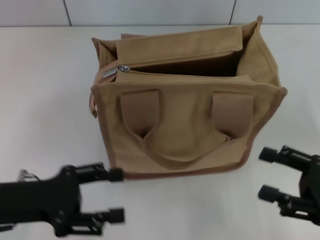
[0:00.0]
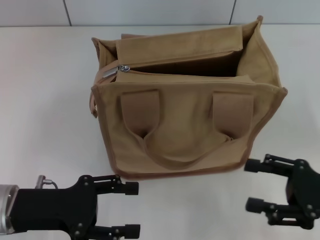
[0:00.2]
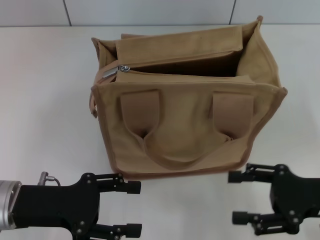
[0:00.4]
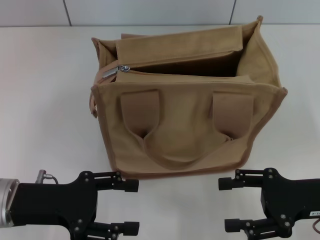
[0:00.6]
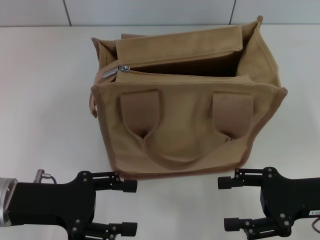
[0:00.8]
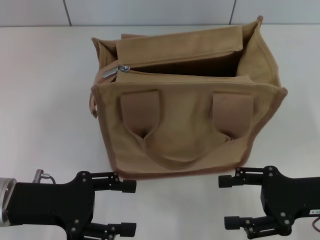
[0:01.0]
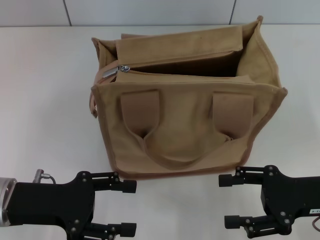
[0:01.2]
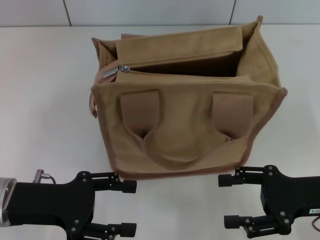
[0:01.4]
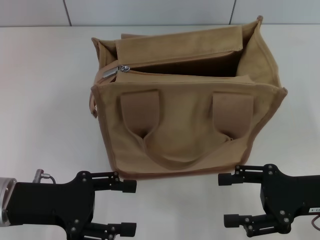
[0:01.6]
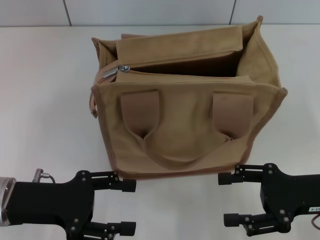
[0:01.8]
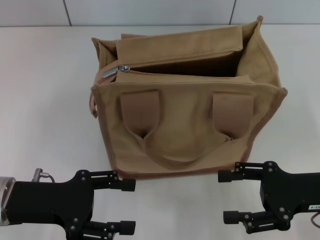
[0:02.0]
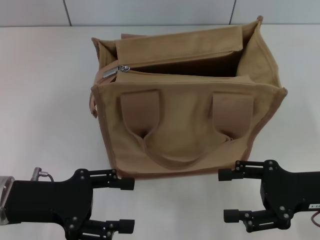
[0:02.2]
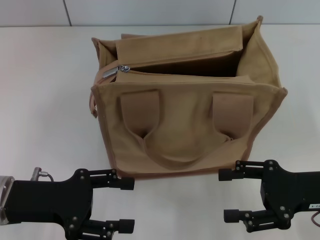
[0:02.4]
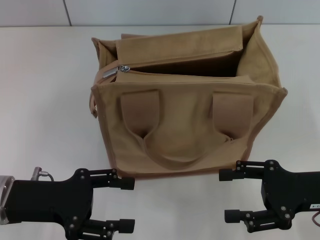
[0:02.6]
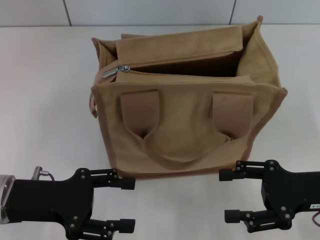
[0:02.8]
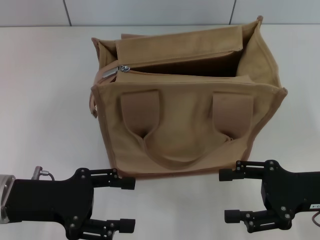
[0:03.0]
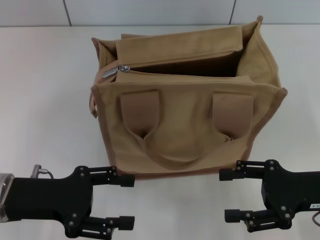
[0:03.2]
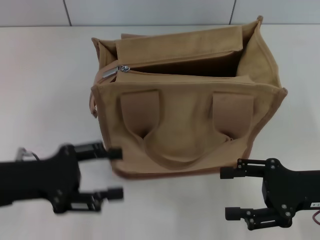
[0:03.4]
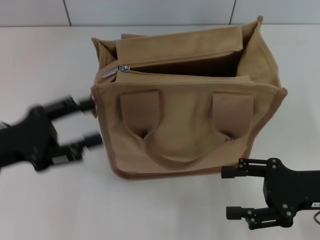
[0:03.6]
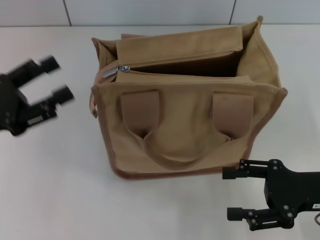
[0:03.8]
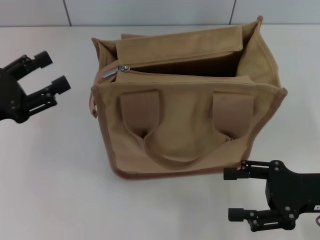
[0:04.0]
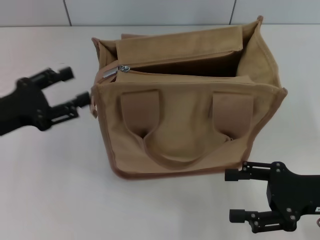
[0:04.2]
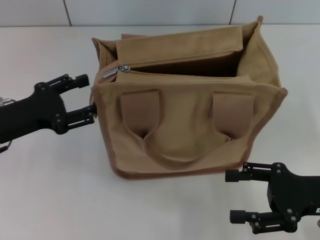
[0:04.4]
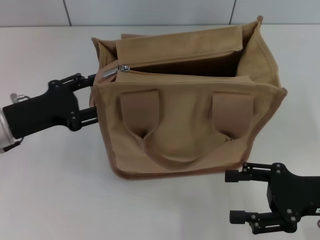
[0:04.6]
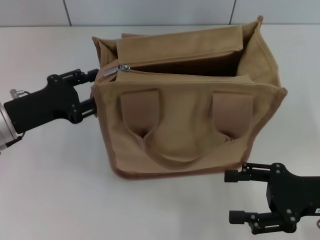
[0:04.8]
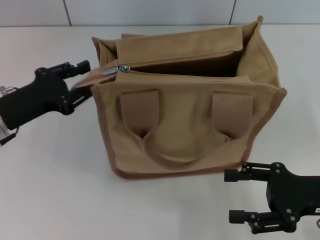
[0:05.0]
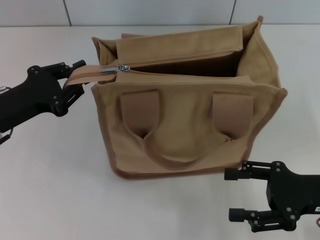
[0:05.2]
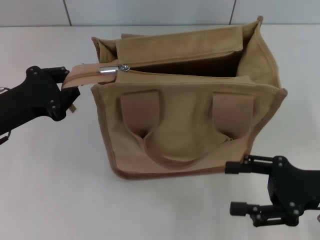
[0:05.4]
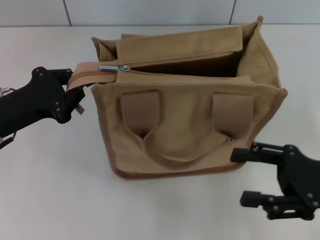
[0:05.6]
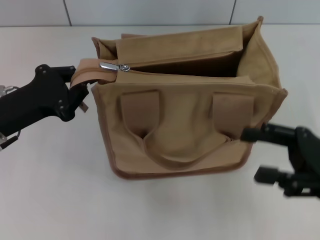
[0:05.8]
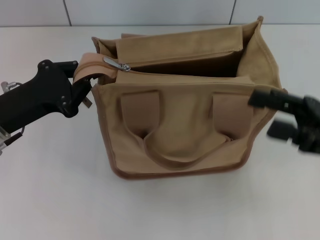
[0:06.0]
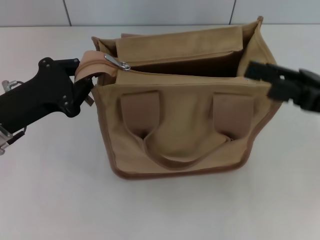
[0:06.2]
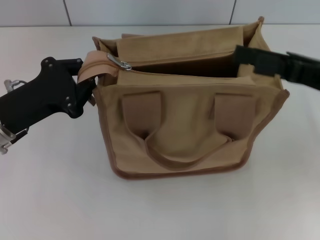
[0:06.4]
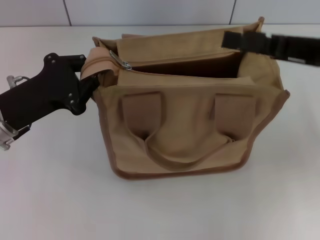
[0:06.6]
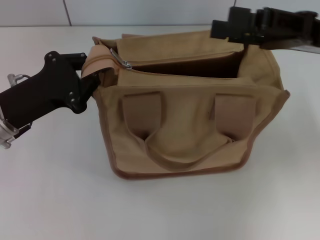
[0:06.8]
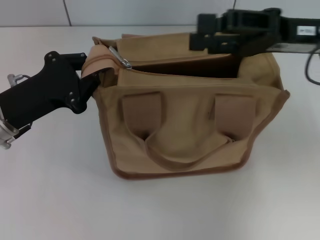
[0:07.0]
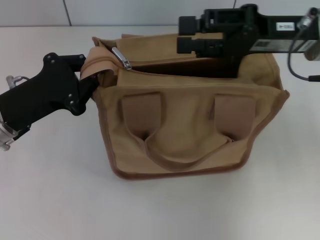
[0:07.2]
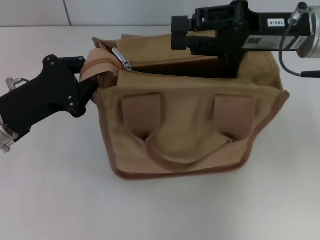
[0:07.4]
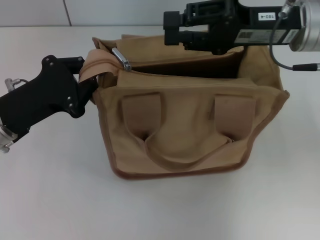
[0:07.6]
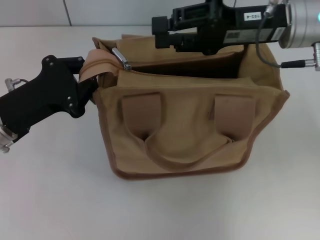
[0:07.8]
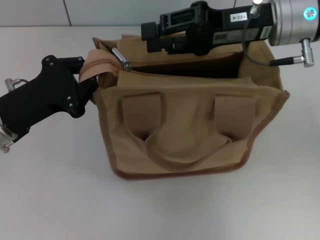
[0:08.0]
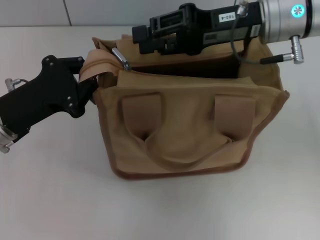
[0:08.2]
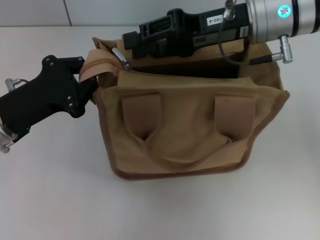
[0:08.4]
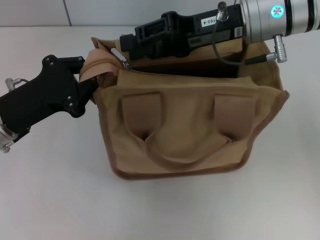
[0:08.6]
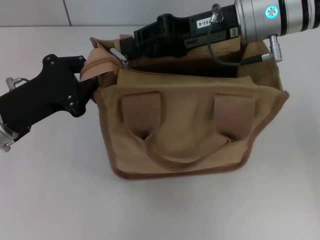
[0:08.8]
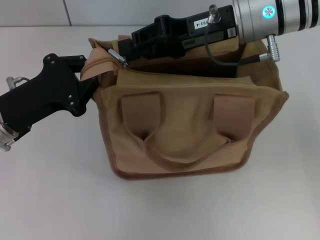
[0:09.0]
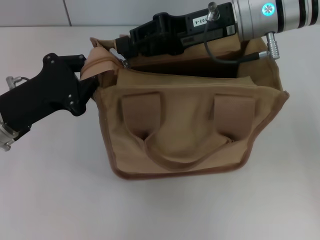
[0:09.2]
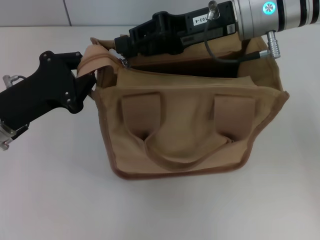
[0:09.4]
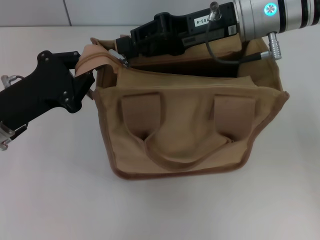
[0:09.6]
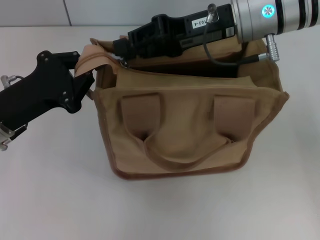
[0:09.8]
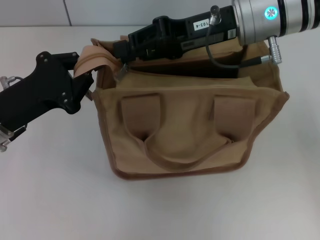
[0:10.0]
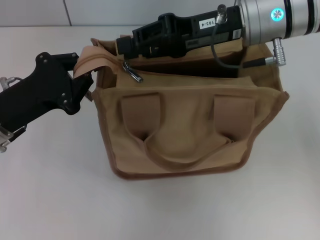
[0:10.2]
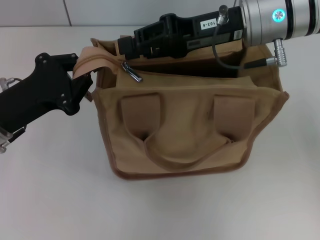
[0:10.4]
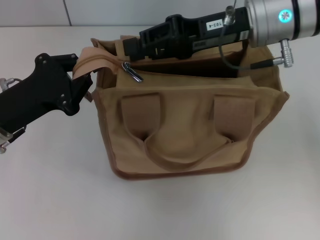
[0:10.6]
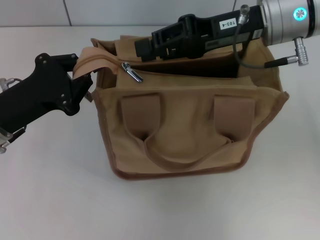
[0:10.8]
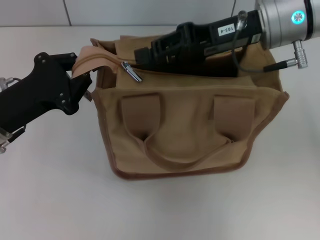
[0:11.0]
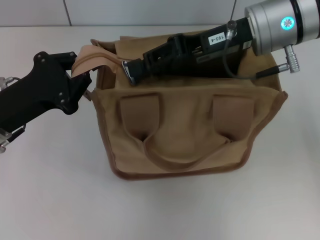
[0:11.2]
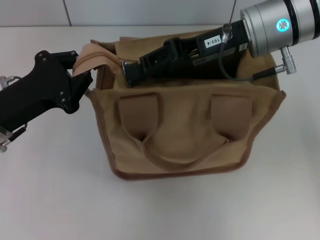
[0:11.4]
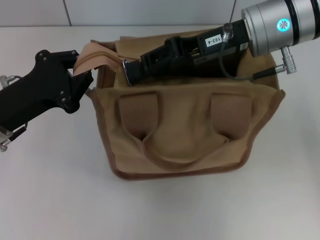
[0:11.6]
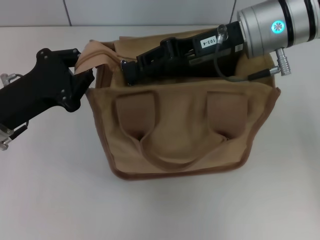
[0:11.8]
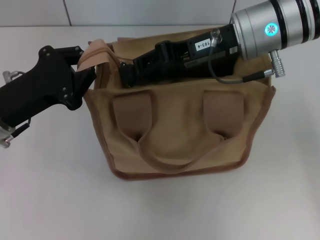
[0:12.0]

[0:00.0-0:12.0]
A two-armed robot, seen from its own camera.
0:00.0 to 0:01.6: The right gripper moves approximately 5 cm.
0:01.6 to 0:03.0: Both grippers stay about where they are.
0:03.0 to 0:04.4: The left gripper travels forward by about 5 cm.
0:04.4 to 0:06.0: The right gripper goes approximately 5 cm upward. Meanwhile the left gripper closes up.
0:06.0 to 0:07.6: The right gripper shifts approximately 15 cm forward, to the left and upward.
0:07.6 to 0:09.0: The right gripper goes roughly 5 cm to the left.
0:09.0 to 0:10.4: Both grippers stay put.
0:10.4 to 0:12.0: The grippers move only a little.

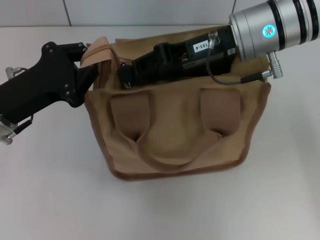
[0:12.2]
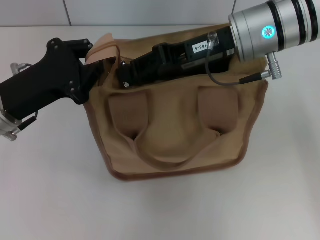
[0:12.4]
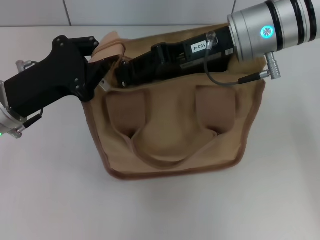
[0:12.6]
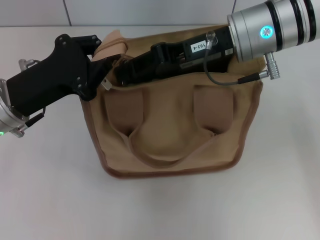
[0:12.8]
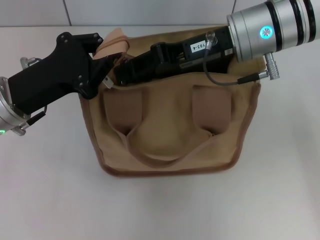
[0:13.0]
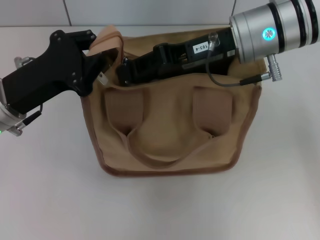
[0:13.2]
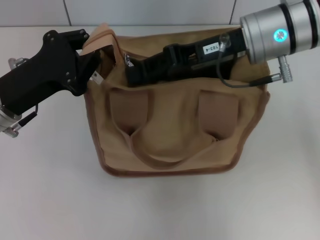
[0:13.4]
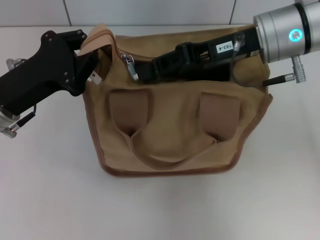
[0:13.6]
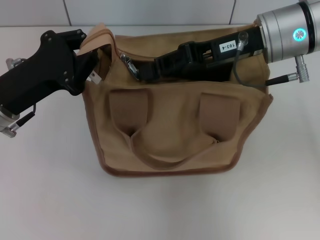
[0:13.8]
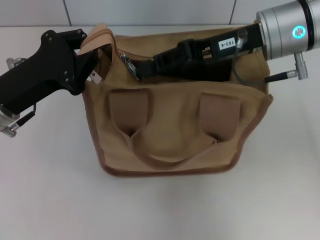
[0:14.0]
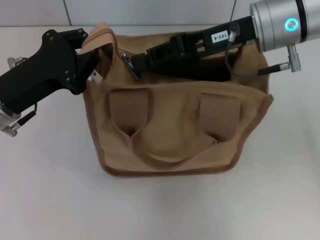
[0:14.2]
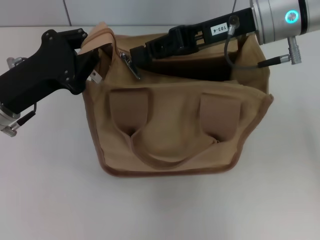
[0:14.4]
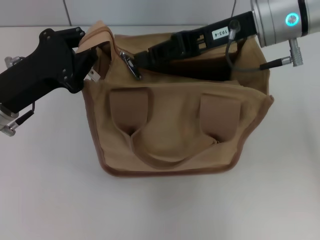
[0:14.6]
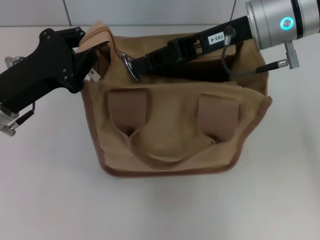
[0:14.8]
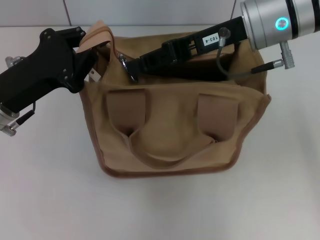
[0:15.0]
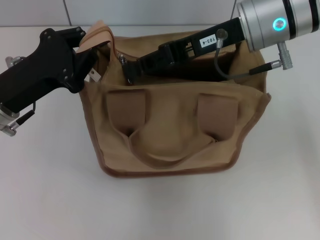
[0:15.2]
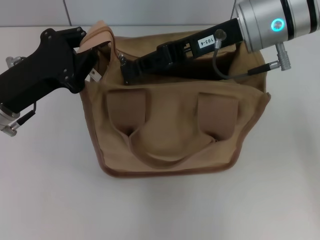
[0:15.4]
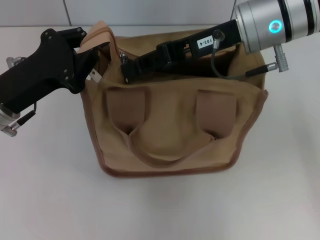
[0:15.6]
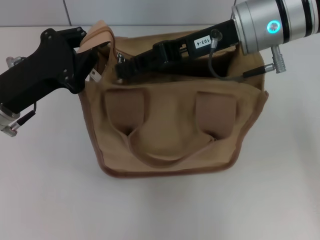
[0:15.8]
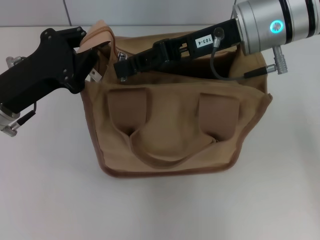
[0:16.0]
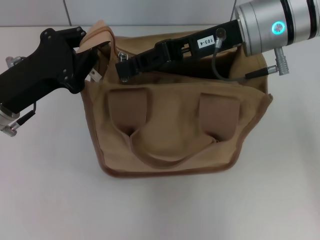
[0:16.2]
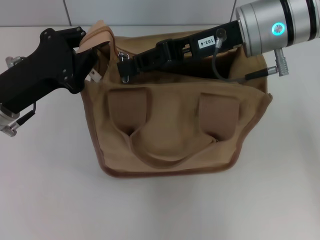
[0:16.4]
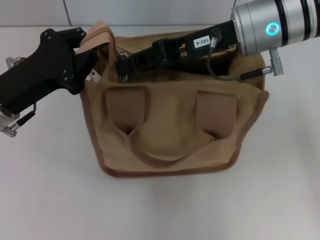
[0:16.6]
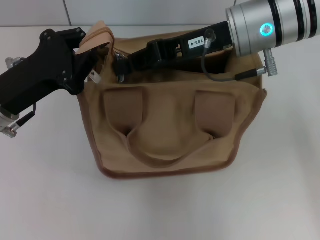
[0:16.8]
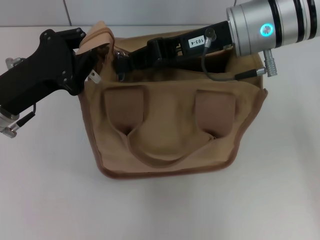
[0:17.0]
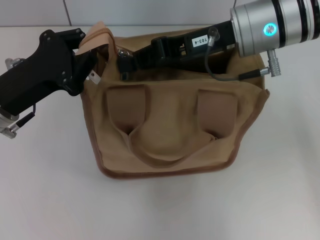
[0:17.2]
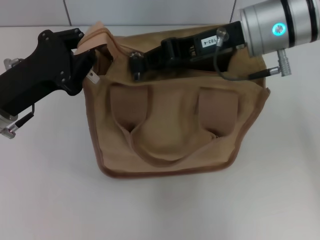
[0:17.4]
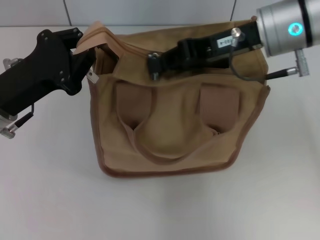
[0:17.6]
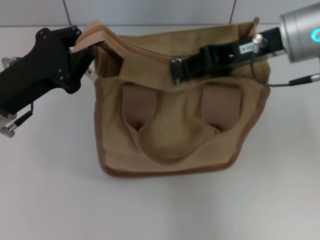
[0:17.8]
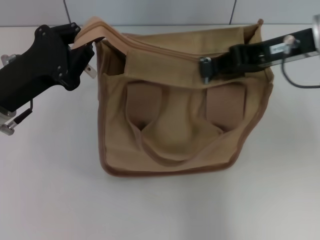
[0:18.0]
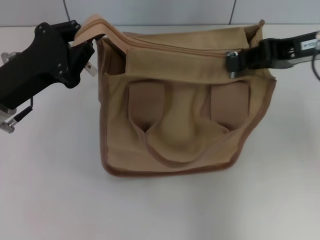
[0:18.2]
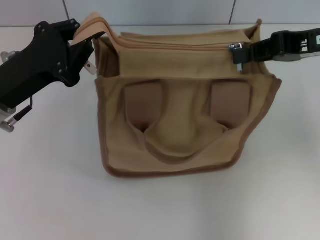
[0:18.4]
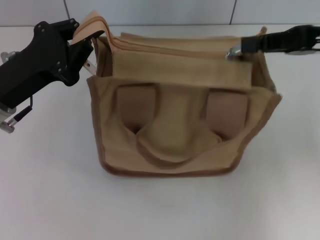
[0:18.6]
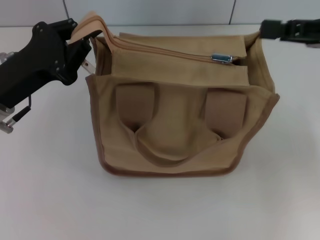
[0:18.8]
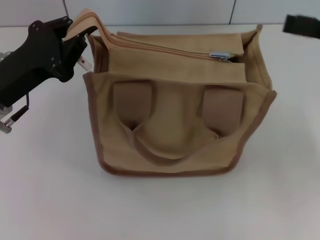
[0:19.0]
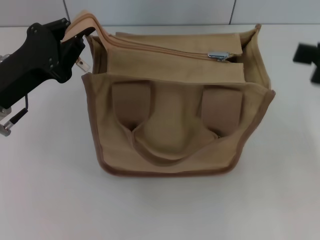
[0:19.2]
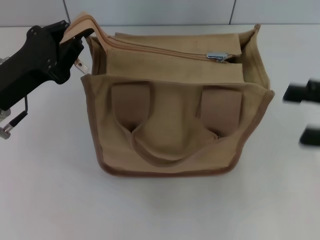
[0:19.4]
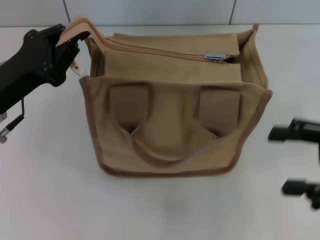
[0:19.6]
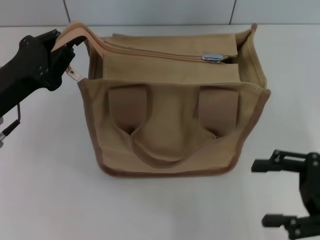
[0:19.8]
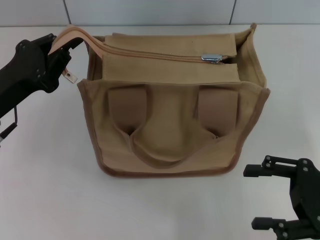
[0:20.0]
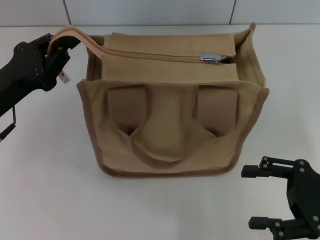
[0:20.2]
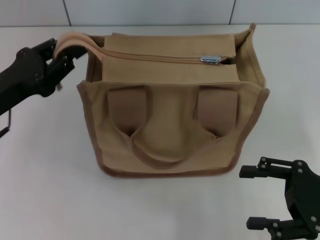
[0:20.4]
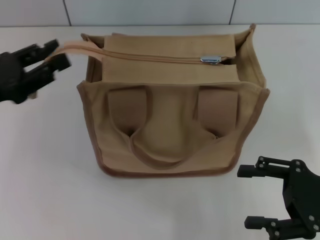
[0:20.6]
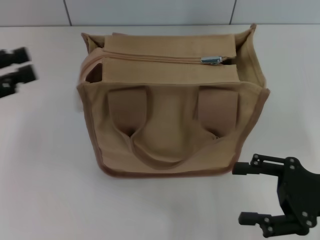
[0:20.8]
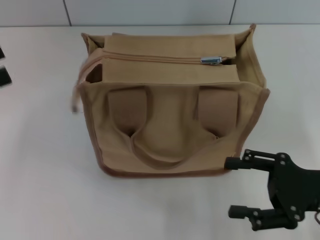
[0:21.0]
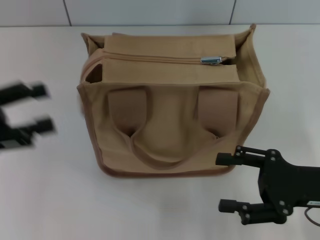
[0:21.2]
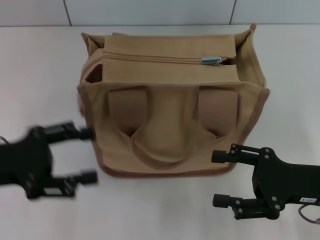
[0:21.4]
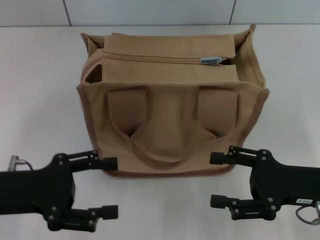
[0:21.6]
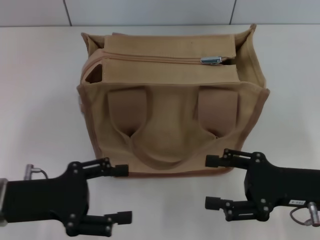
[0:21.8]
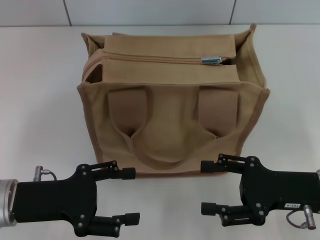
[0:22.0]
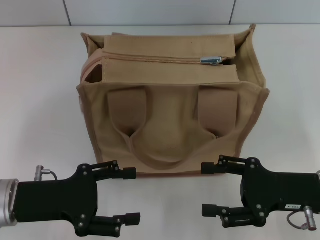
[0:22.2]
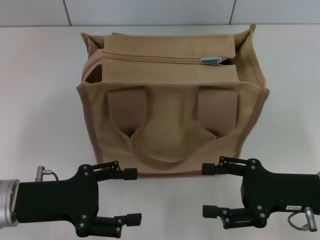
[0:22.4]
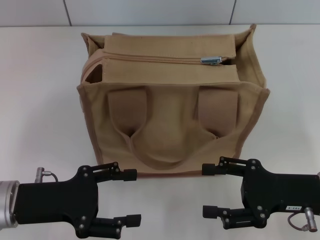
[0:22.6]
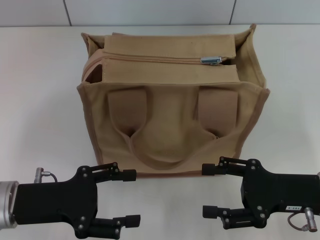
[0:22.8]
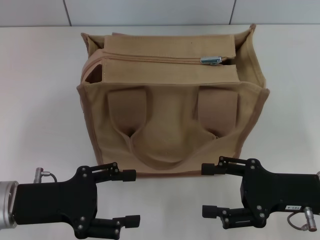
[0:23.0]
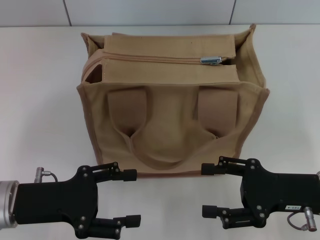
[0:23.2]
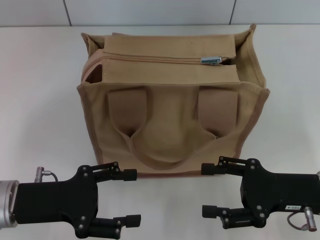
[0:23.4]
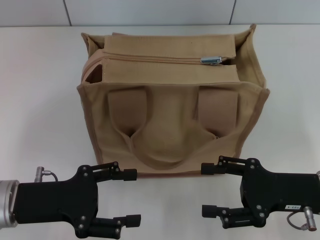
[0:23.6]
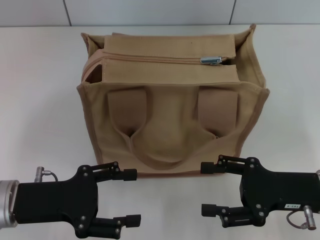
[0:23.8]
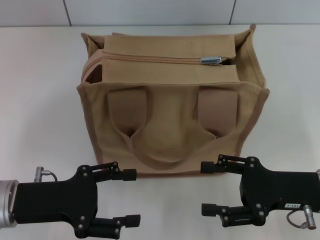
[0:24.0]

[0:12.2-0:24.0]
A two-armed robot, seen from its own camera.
Step, 0:12.2 to 0:18.6: Pull up the zipper with your right hand.
Step, 0:18.8 to 0:21.0: Grab the zipper with your left hand.
0:12.2 to 0:16.6: The grippers stay close to where they were, moving slightly.
0:16.6 to 0:18.2: The right gripper is displaced to the right by some 10 cm.
0:18.2 to 0:19.6: The right gripper is displaced backward, downward and to the right by approximately 15 cm, and opens up.
0:19.6 to 0:21.0: The right gripper goes some 5 cm downward. The left gripper goes some 15 cm to the left and upward, and opens up.
0:21.0 to 0:22.6: The left gripper is displaced to the right and downward by approximately 15 cm.
0:22.6 to 0:24.0: Both grippers stay about where they are.
